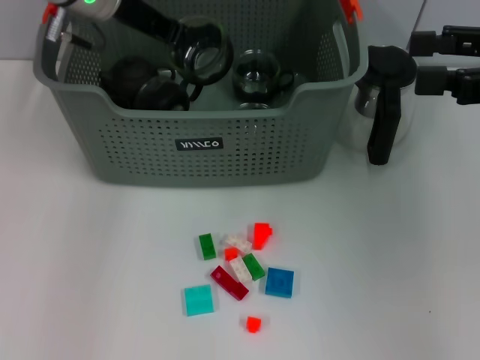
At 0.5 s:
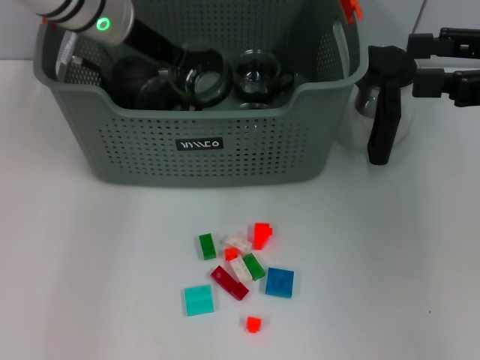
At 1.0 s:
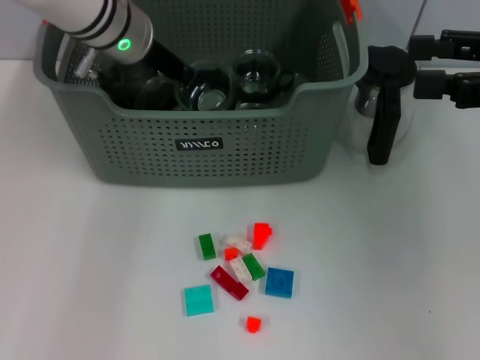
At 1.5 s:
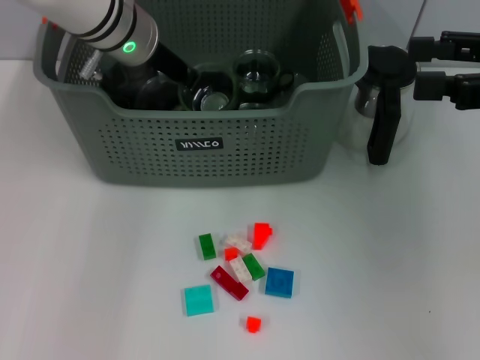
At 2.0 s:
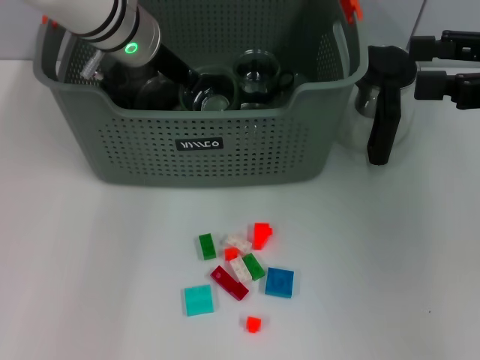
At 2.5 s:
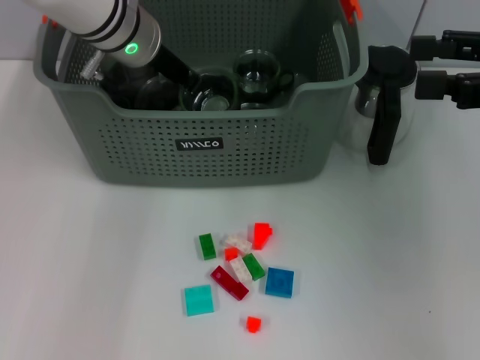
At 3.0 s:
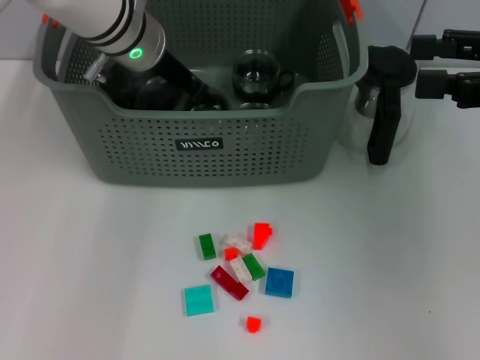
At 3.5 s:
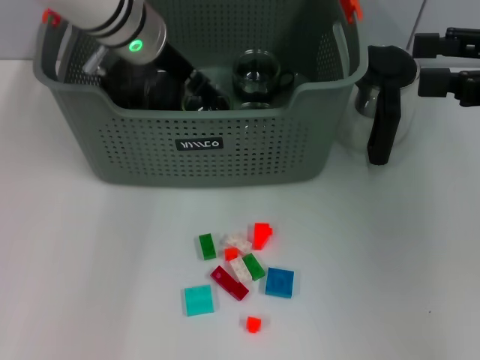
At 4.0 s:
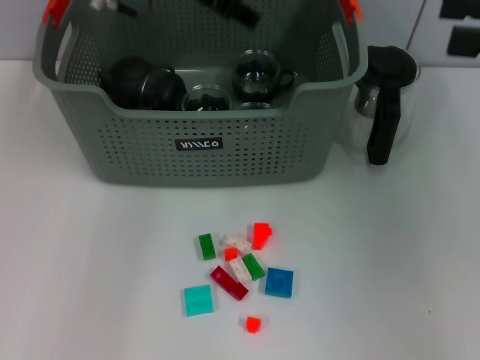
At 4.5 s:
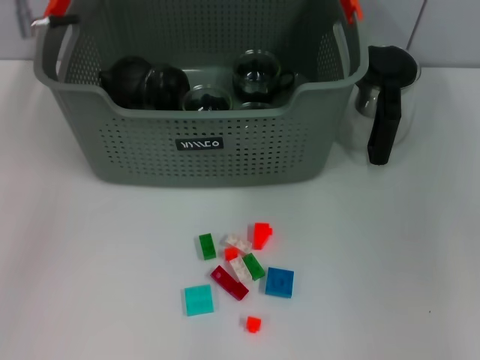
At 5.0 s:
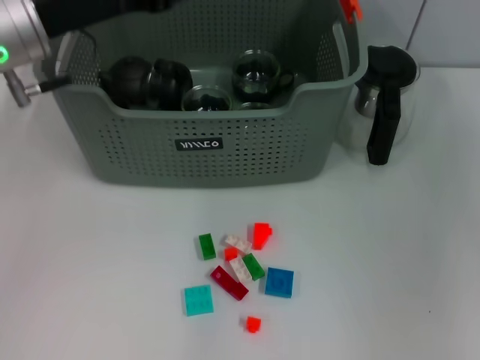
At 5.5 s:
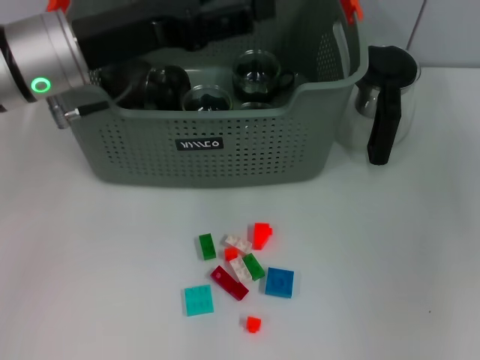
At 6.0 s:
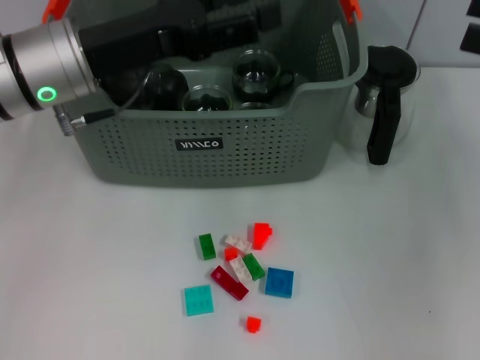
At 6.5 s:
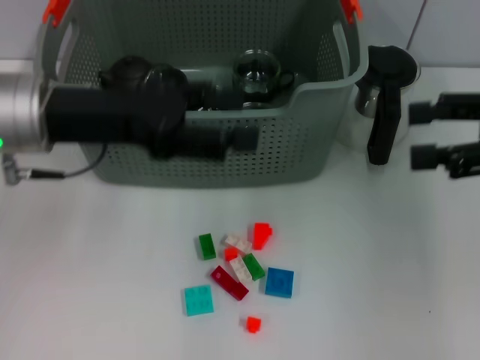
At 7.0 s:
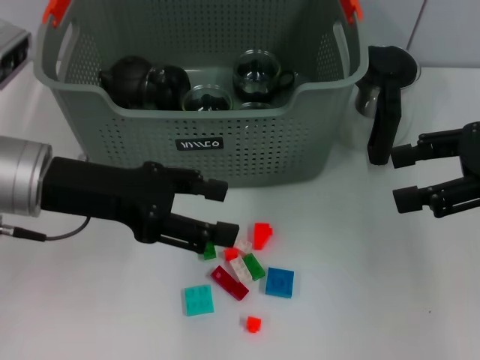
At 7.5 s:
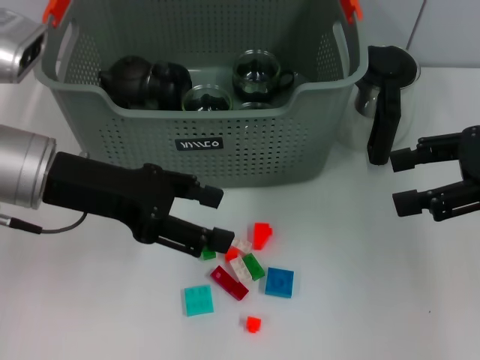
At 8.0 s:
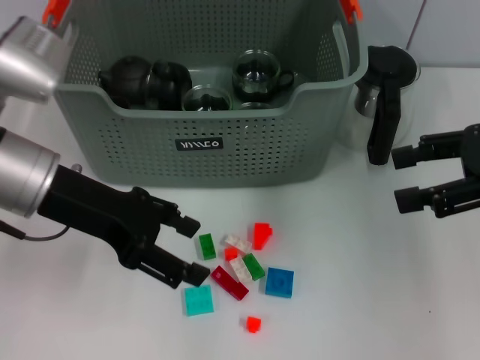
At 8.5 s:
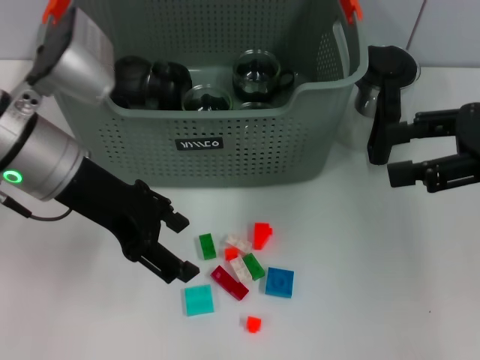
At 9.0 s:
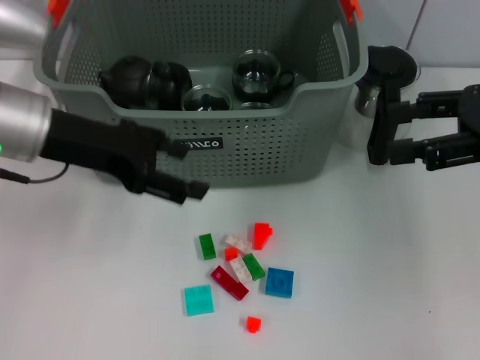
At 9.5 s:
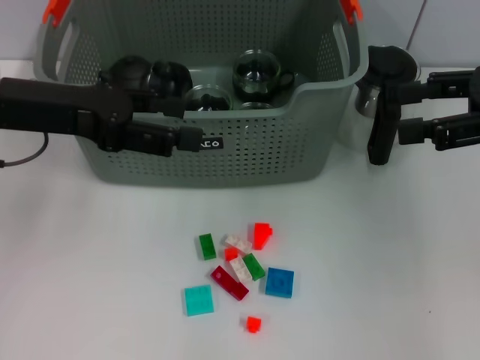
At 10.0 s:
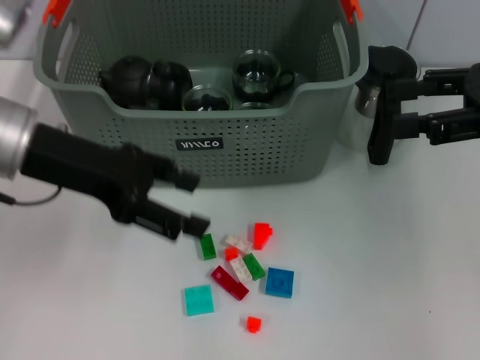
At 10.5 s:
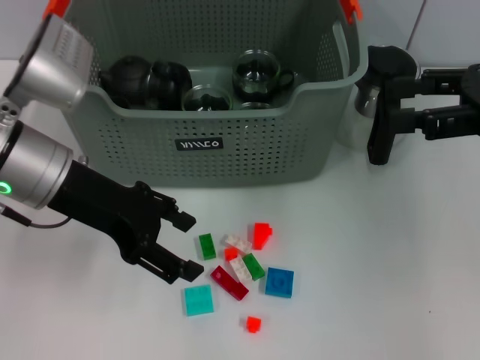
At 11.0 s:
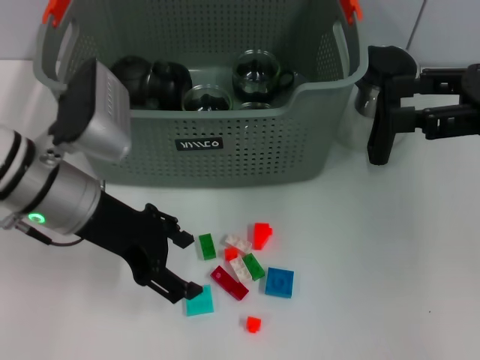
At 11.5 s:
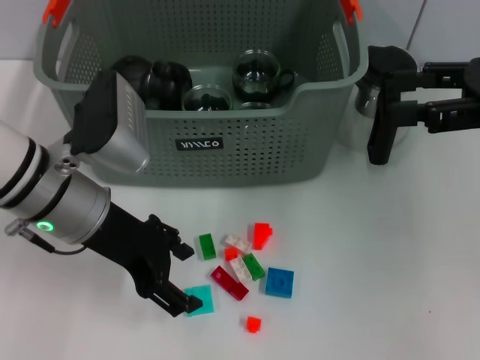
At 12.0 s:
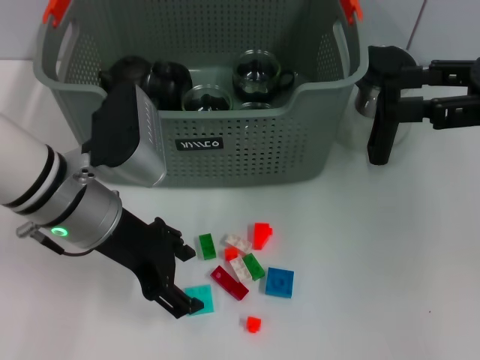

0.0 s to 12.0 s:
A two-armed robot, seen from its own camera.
Task of the whole recording: pick up the teacup on the table and place it into the storage bin, pick up the block on the table and place it into the storage bin.
Step, 0.0 to 4.0 s: Place the cup in the storage box with left gripper.
0.0 to 2.0 s: The left gripper moves about 5 cm.
2.0 to 4.0 s: The left gripper heads upward, covering some 10 cm, and opens its fingers.
4.0 to 6.0 s: The left gripper travels backward, downward and to the left by approximately 15 cm.
6.0 to 8.0 s: The left gripper changes place by about 5 cm.
10.0 to 12.0 s: The left gripper heads downward and to the right, covering about 10 cm.

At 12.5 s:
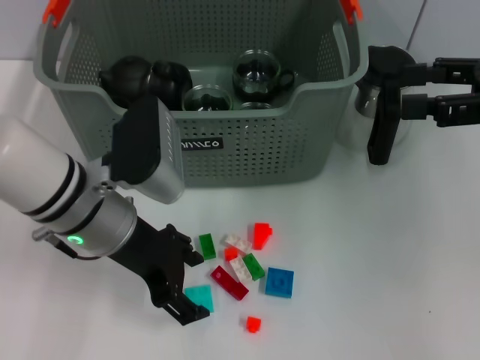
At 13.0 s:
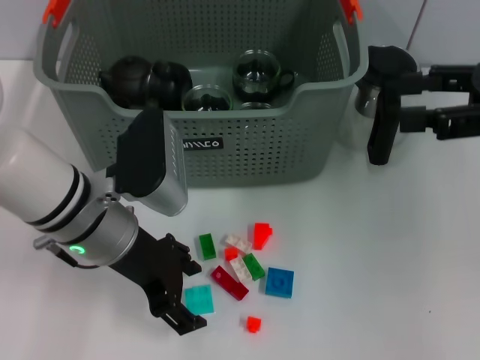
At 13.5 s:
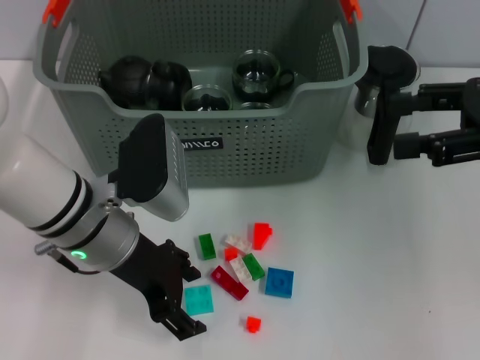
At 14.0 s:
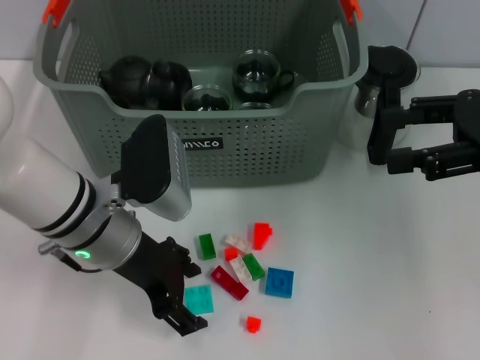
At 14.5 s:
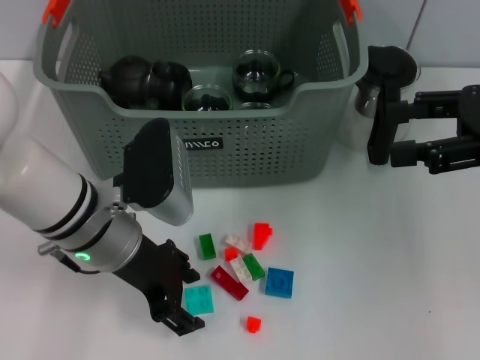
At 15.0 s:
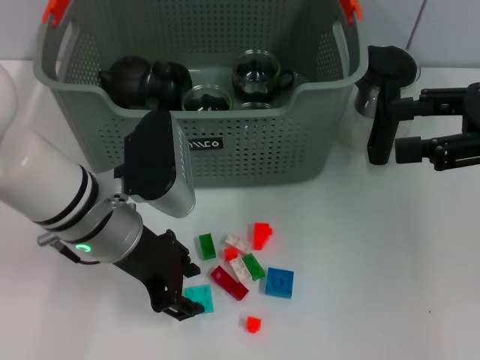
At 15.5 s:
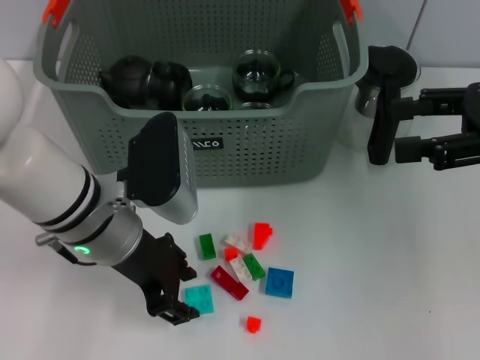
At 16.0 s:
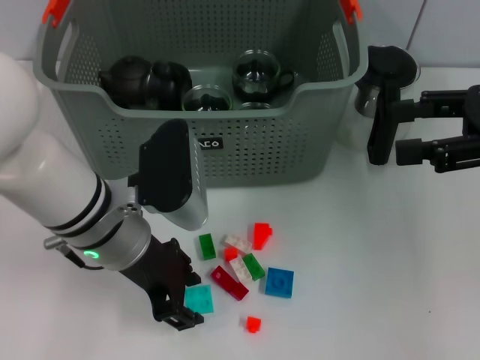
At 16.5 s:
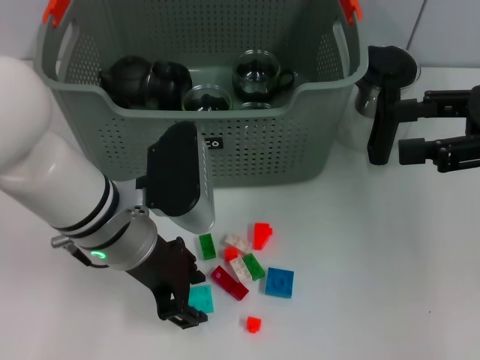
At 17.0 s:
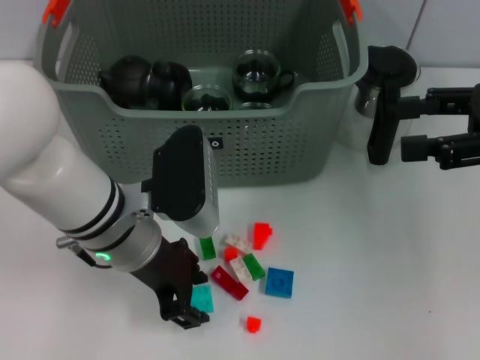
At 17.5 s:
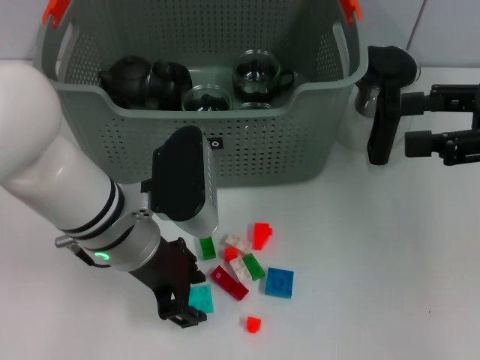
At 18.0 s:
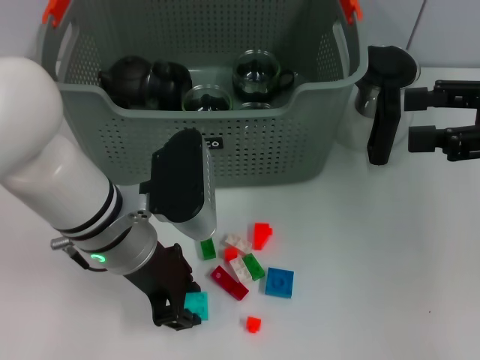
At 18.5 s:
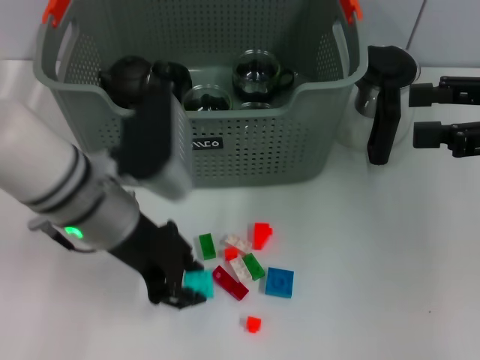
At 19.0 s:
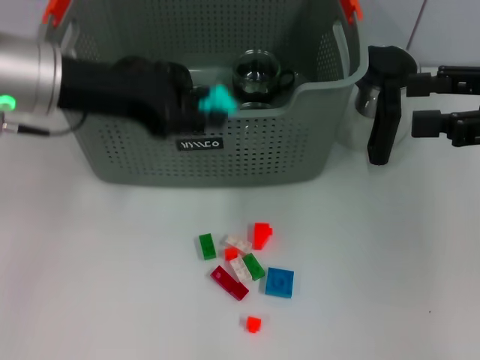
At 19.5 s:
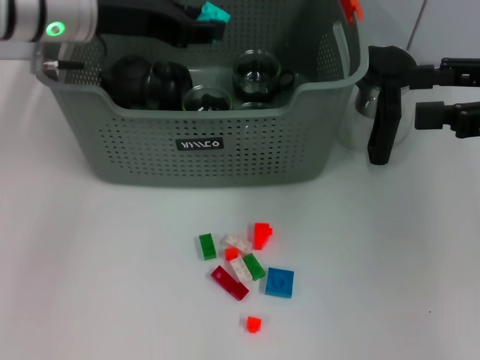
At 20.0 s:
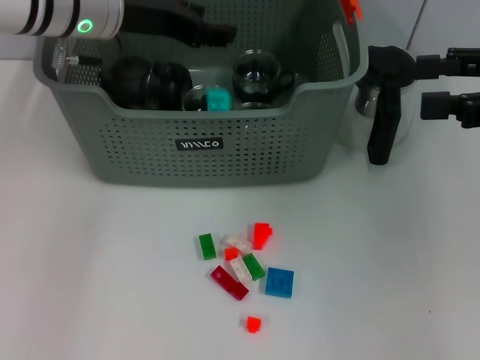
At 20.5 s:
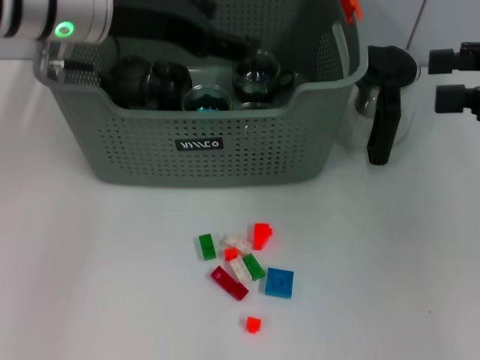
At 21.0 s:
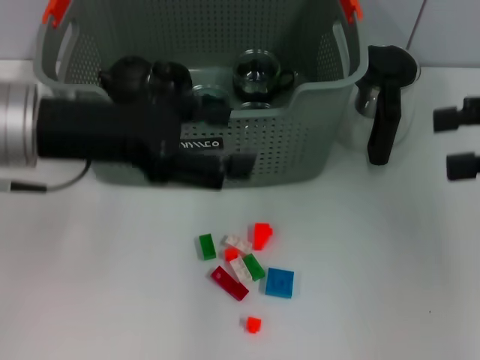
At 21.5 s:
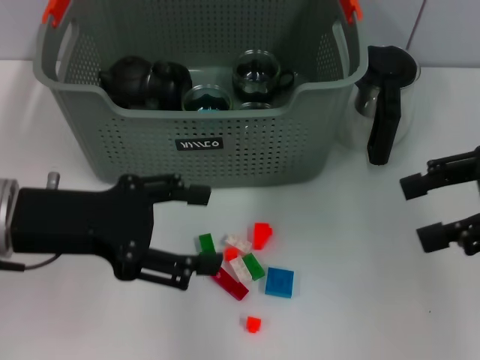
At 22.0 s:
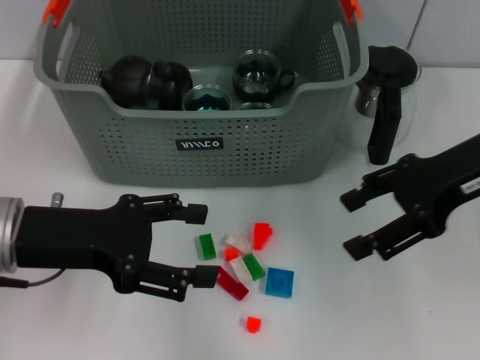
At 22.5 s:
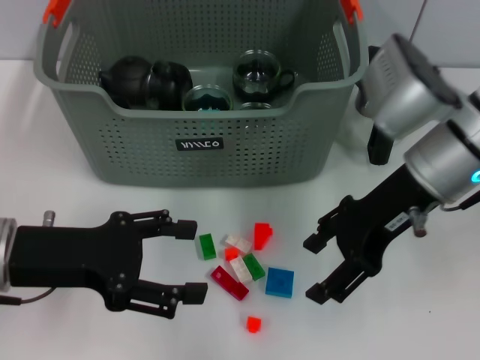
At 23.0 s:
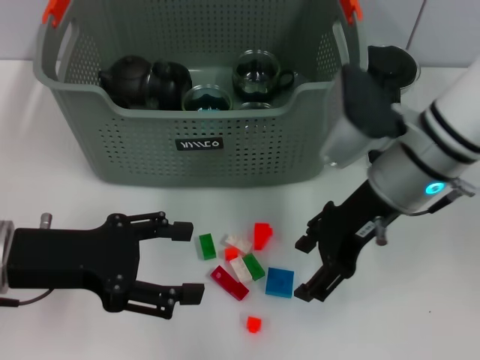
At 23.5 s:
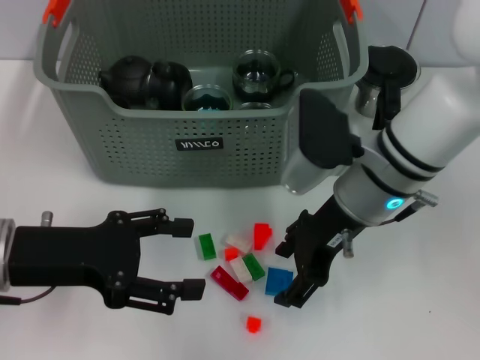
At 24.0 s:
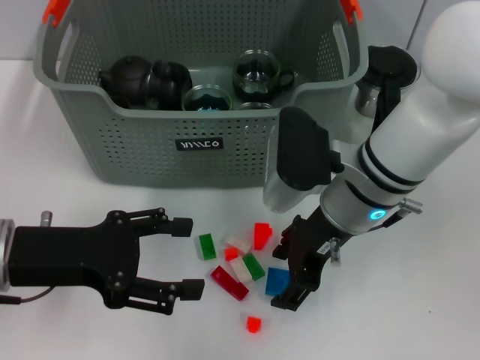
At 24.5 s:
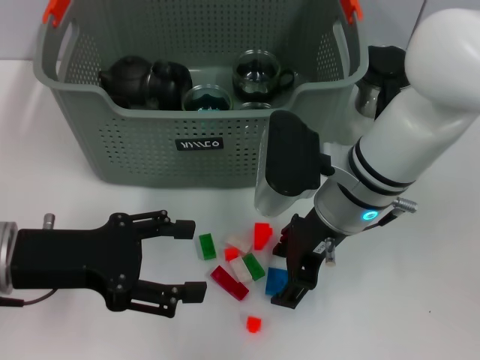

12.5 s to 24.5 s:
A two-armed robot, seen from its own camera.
Task of the whole recording: pick up the teacup on the table and place it into the storage bin, pick up the block on the table and place it into the storage bin.
Step, 12.5 to 17.5 s: Grasp the light blue block with left gripper.
Step, 18.0 to 20.0 s: Place the light blue block in the storage box with left gripper.
12.5 to 18.5 s: There are only small adjustments of the grippers.
18.5 to 20.5 s: The left gripper moves upward and forward, some 15 cm, and opens its fingers.
20.5 to 22.5 s: The right gripper travels to the left and downward by approximately 15 cm; the left gripper is displaced backward, downward and to the left by approximately 20 cm.
22.5 to 24.5 s: The right gripper goes some 10 cm to the left and downward.

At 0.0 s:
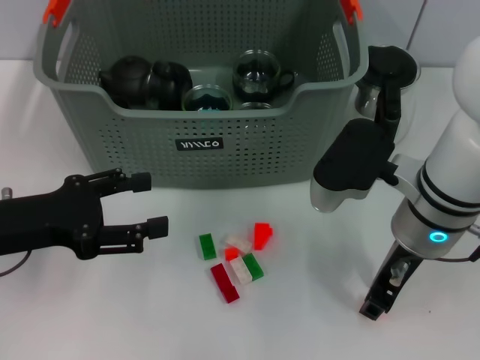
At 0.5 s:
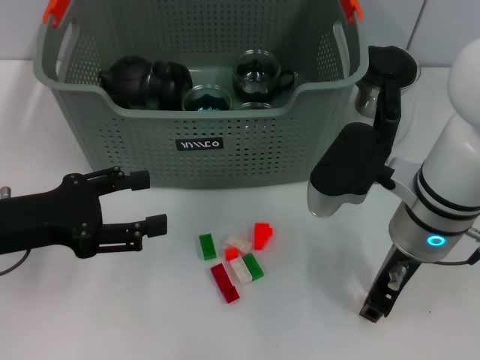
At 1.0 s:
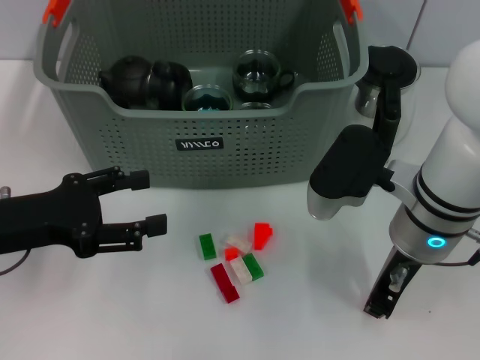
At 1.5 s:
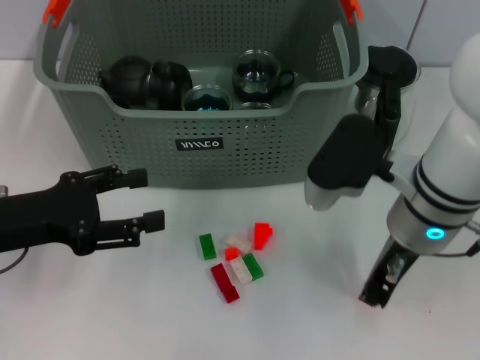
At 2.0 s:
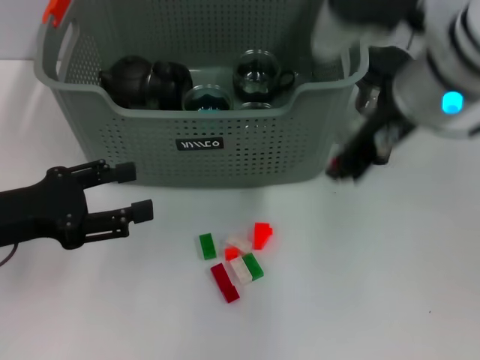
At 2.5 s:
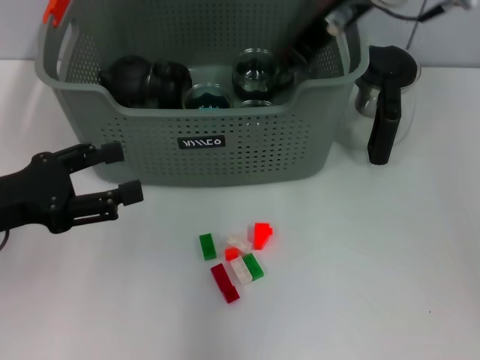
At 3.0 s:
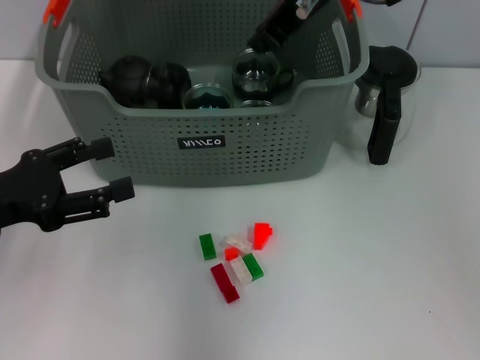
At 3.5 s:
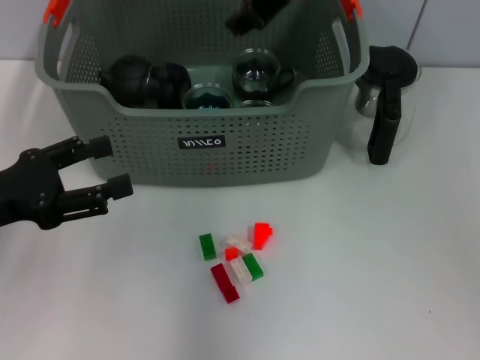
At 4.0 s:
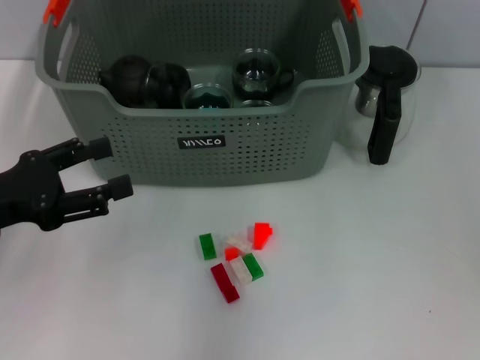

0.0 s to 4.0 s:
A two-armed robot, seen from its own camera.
Task of the whole recording: pick up the teacup on the table and place it into the storage bin, pick up the block on the table and place it into the storage bin.
Step, 1.5 to 3.5 s: Place the orange block in the storage box with right gripper.
0.0 to 2.0 s: The right gripper shifts about 10 cm upward.
2.0 to 4.0 s: The right gripper heads upward, covering approximately 10 cm, and opens.
